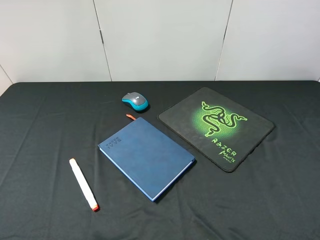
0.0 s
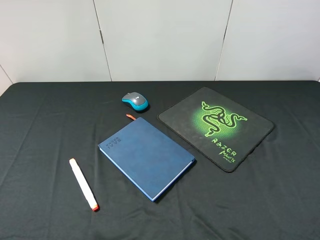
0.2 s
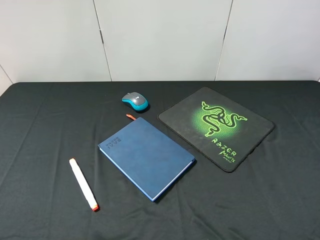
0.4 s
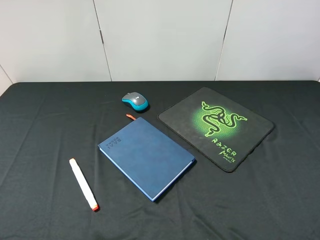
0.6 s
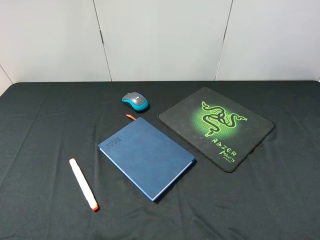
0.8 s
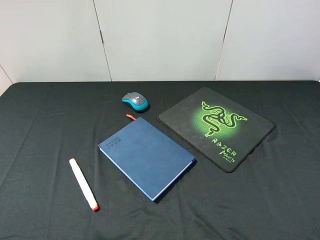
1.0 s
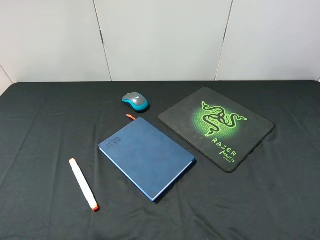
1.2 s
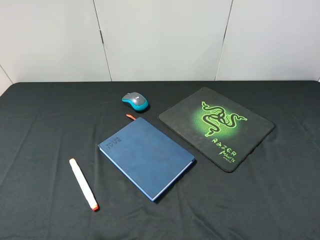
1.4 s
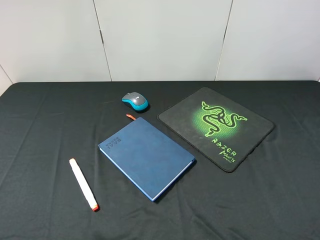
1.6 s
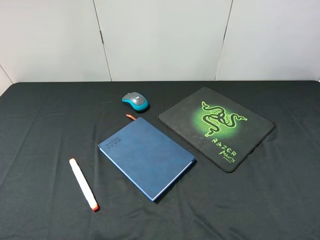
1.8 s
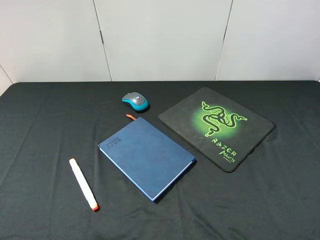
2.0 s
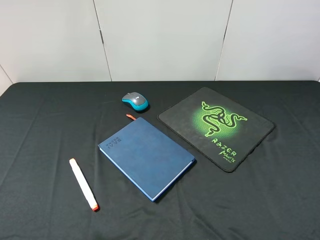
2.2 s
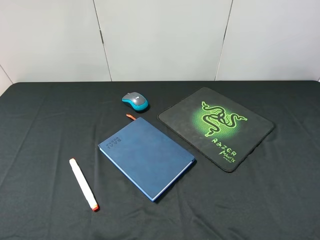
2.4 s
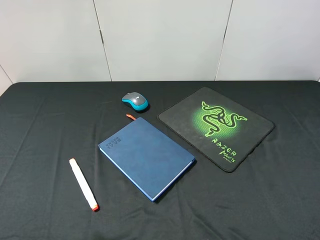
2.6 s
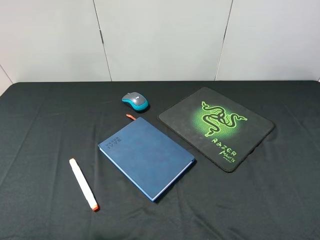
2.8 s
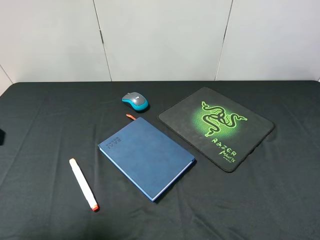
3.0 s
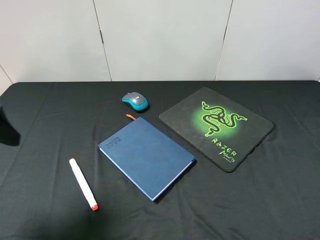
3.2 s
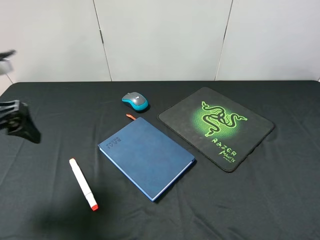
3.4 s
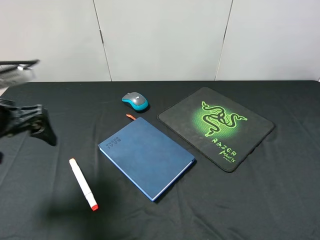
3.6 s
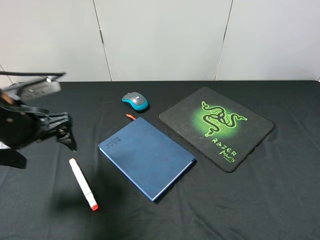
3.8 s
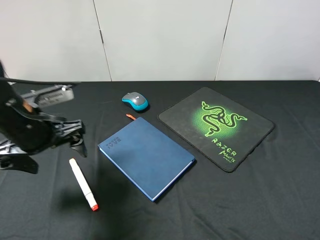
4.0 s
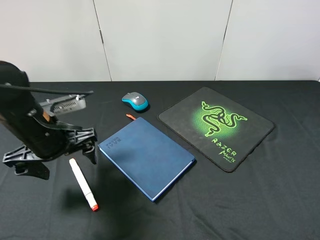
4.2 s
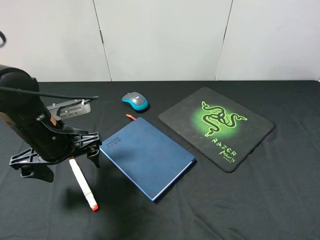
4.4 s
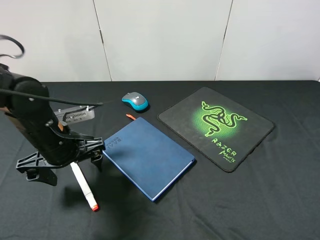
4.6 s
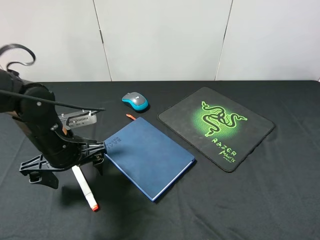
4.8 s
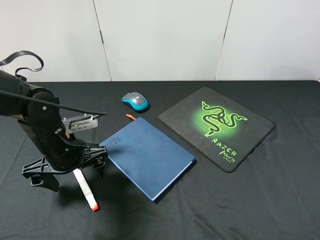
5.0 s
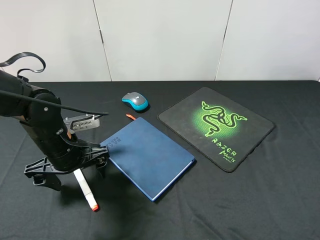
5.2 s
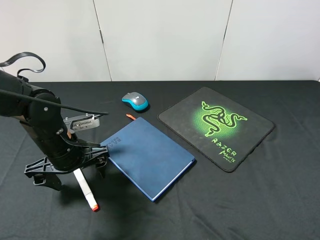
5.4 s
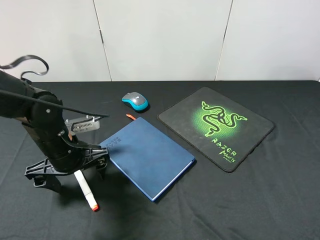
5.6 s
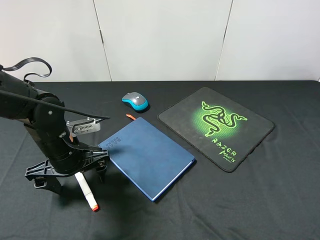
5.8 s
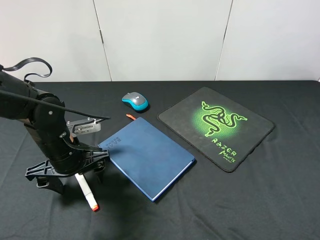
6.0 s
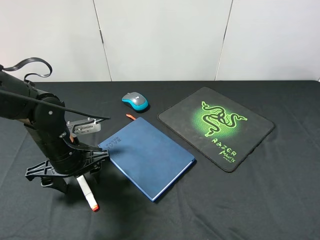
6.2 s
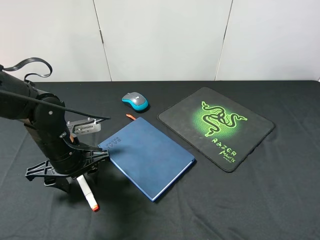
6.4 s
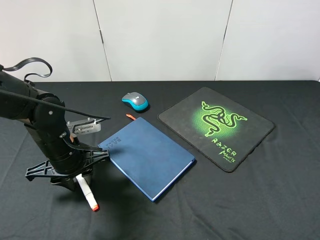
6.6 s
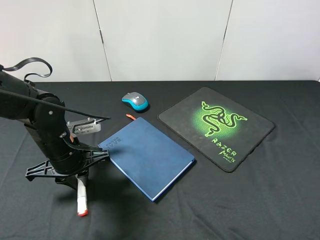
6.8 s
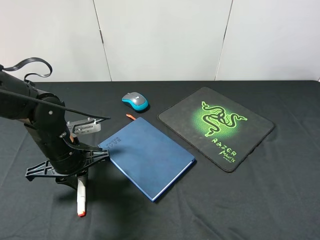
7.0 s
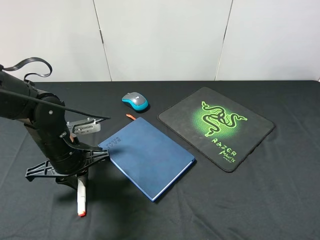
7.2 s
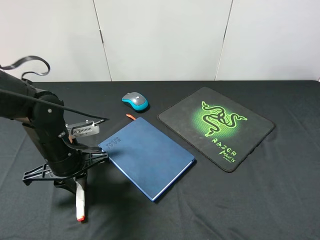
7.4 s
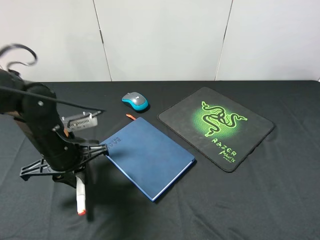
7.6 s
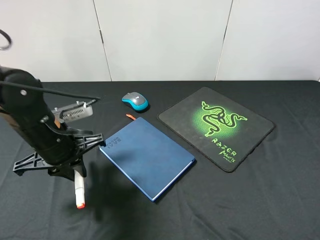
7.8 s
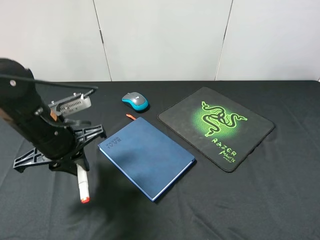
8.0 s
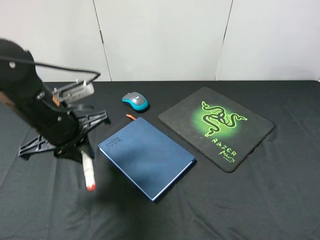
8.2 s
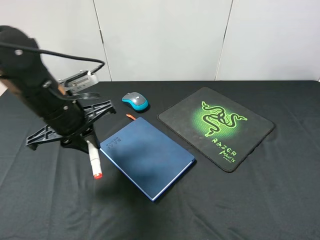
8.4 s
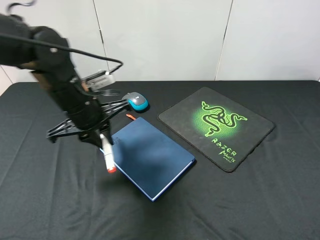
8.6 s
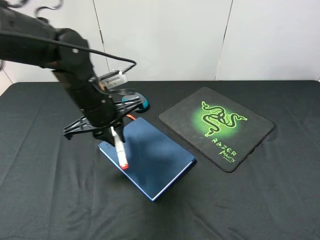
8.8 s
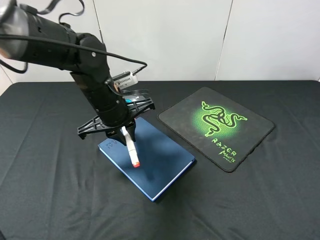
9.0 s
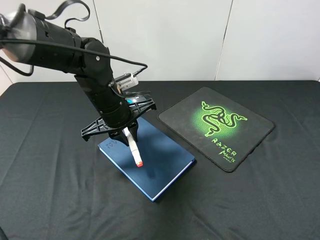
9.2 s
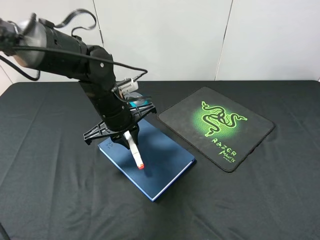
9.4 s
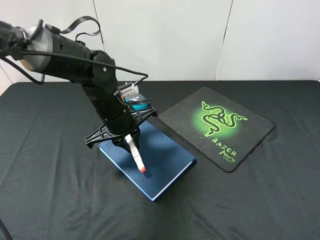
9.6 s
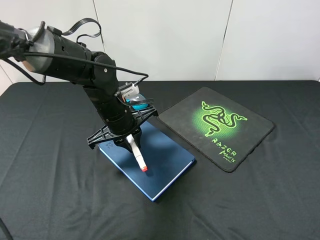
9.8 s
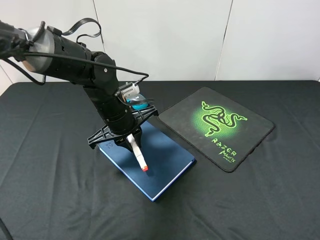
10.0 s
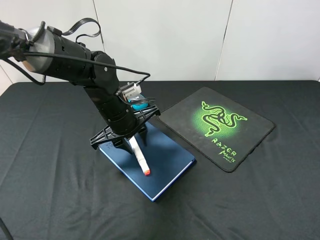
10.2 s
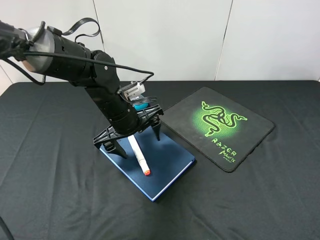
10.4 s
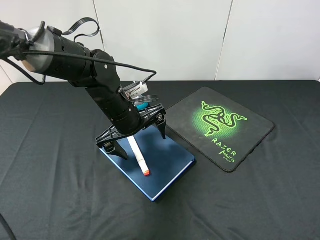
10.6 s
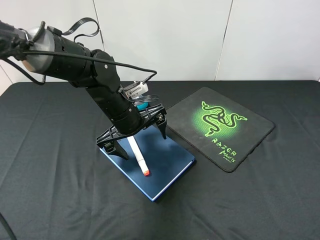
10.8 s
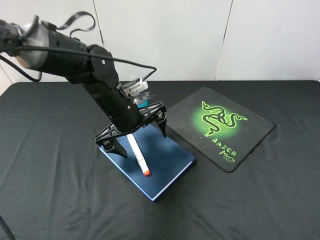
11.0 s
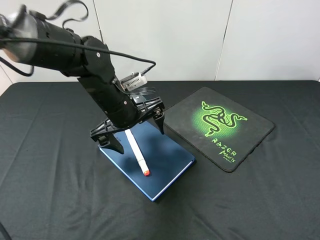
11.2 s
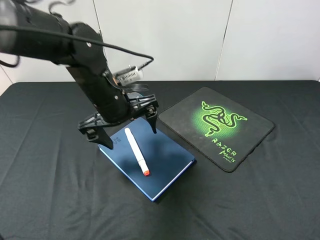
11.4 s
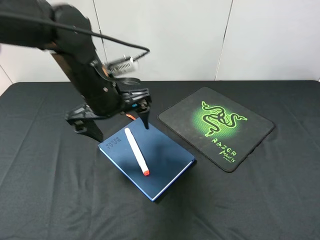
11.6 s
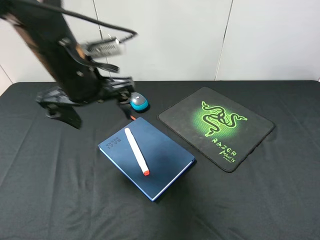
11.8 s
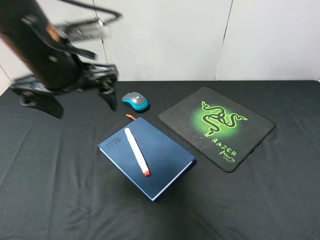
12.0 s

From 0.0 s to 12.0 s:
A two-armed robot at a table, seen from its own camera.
Step, from 0.0 s to 8.2 s: Pick up the marker pen with left gripper.
Step, from 8.4 s to 11.0 s: Place the marker pen on the notebook with left gripper.
From 0.0 s to 1.6 s: Both grippers stay put.
From 1.6 s to 3.0 s: The left gripper shifts approximately 15 cm forward.
From 3.0 s to 4.4 s: The left gripper is displaced downward, to the right and forward by about 20 cm.
From 4.4 s to 6.0 s: There are only small adjustments of the grippers.
From 6.0 s to 7.6 s: The left gripper closes up.
From 7.6 s to 9.0 s: The left gripper goes about 10 cm to the right and forward.
From 9.0 s to 10.4 s: The left gripper opens up.
From 10.4 s to 12.0 s: The left gripper moves upward and to the left, some 20 cm.

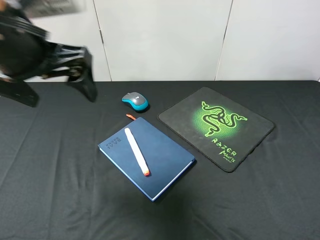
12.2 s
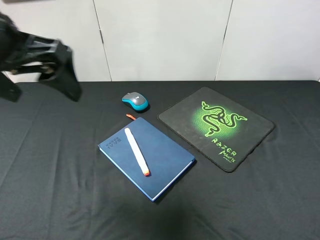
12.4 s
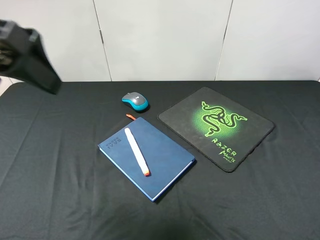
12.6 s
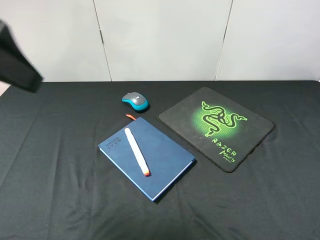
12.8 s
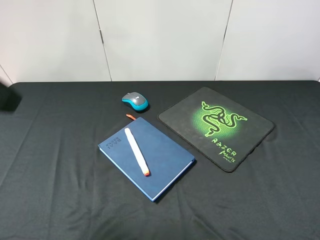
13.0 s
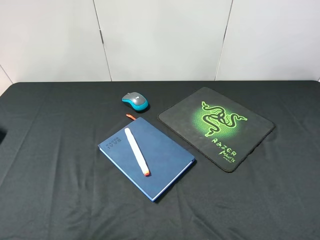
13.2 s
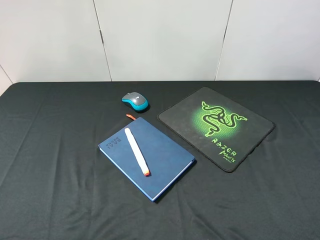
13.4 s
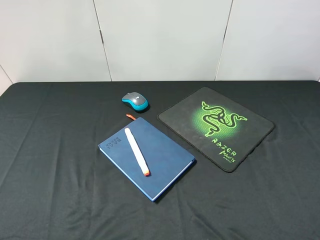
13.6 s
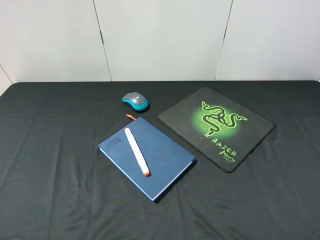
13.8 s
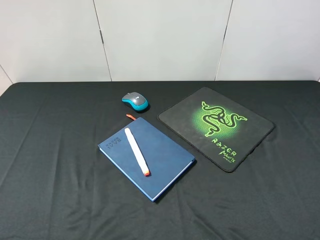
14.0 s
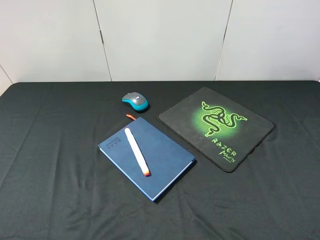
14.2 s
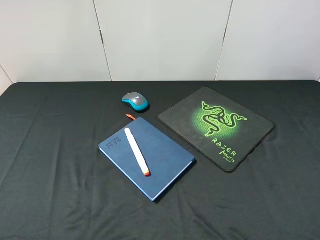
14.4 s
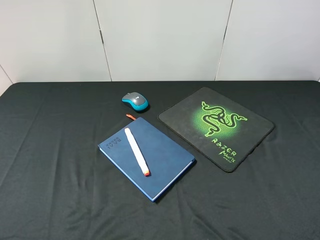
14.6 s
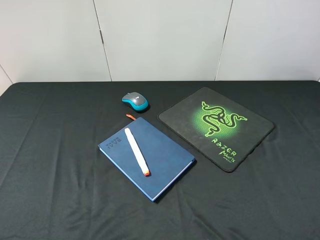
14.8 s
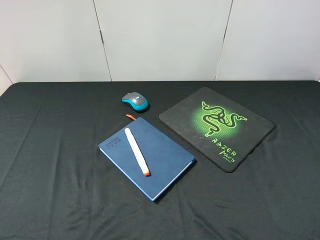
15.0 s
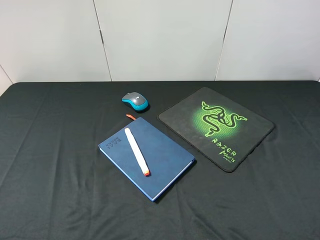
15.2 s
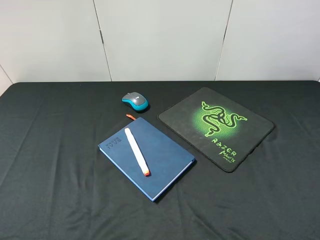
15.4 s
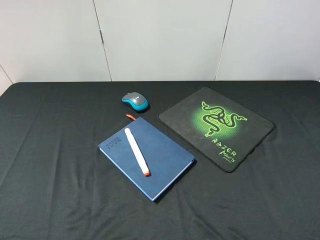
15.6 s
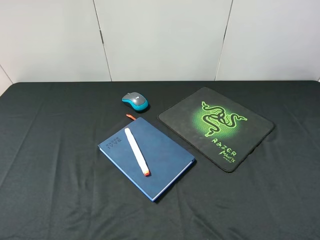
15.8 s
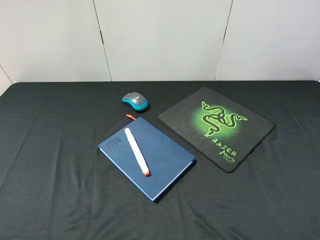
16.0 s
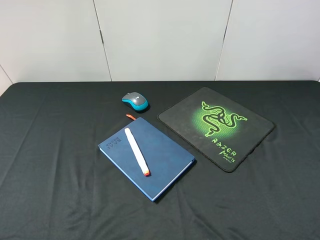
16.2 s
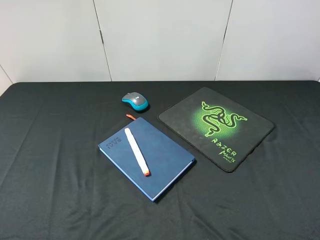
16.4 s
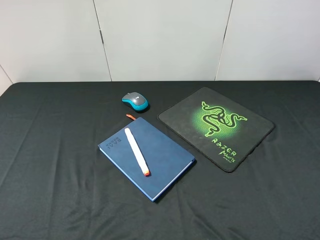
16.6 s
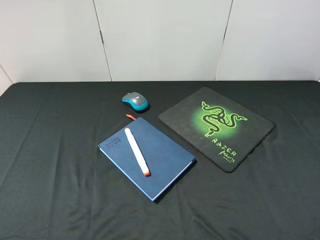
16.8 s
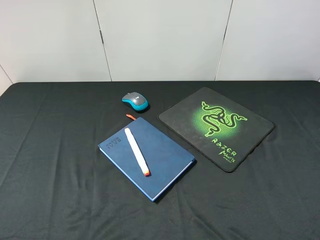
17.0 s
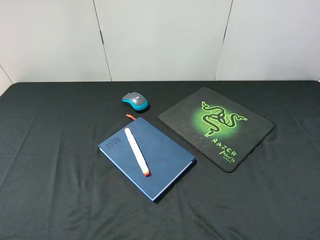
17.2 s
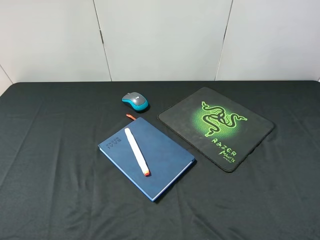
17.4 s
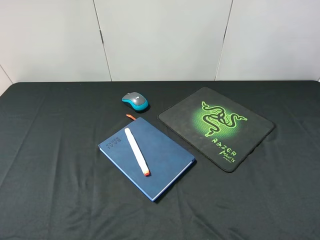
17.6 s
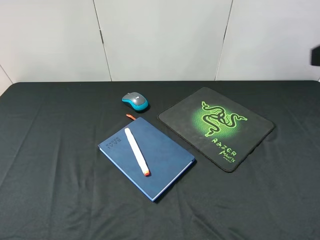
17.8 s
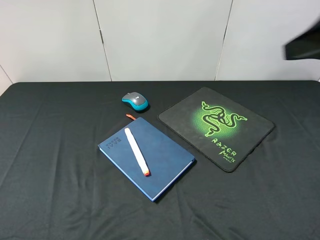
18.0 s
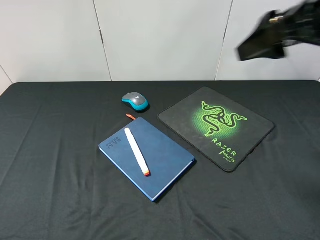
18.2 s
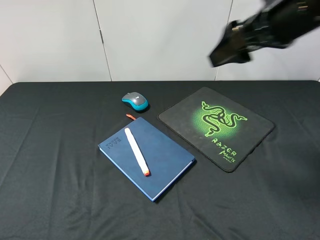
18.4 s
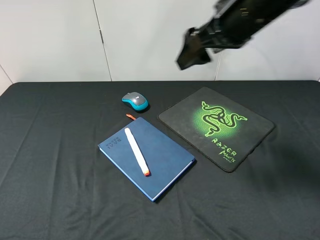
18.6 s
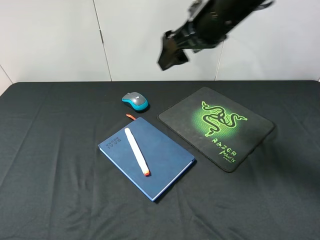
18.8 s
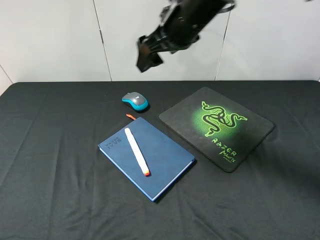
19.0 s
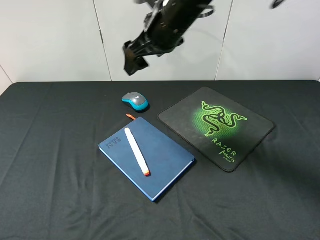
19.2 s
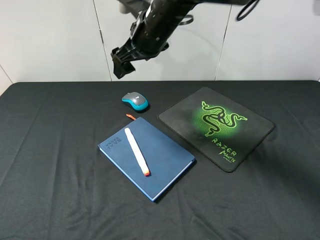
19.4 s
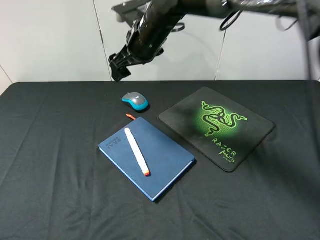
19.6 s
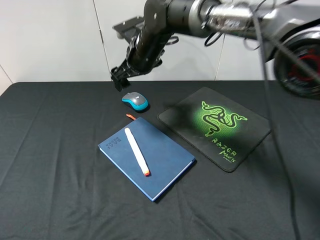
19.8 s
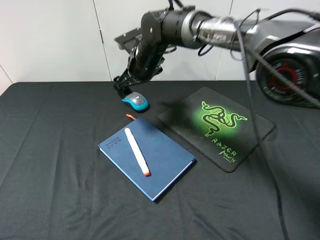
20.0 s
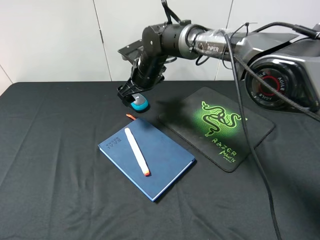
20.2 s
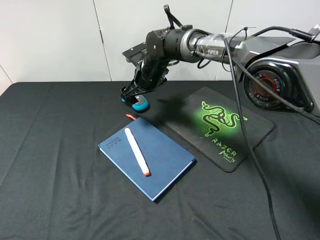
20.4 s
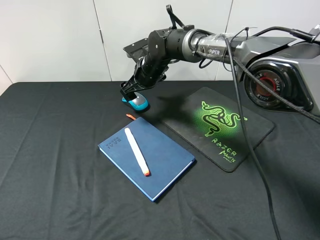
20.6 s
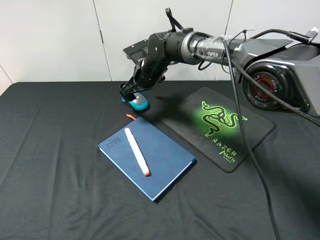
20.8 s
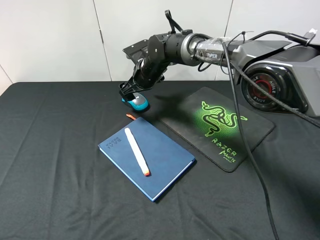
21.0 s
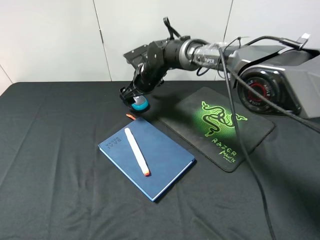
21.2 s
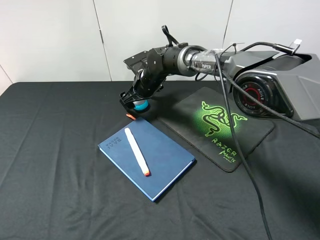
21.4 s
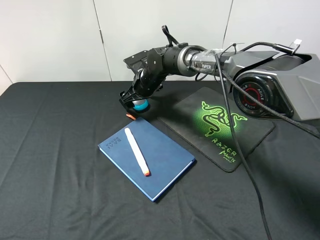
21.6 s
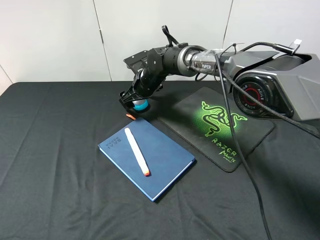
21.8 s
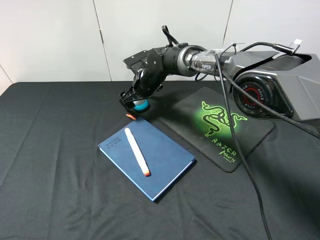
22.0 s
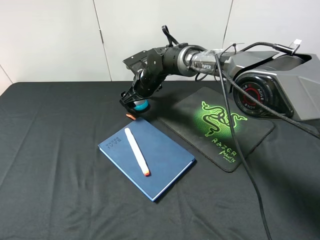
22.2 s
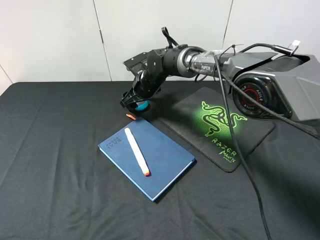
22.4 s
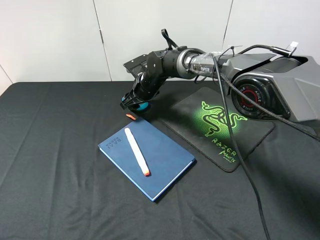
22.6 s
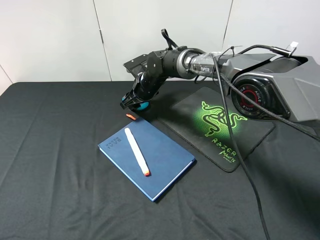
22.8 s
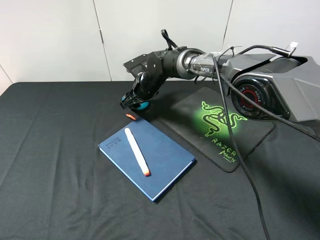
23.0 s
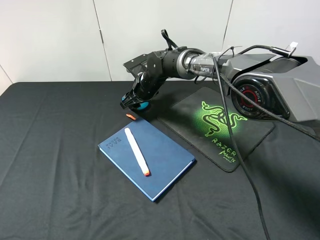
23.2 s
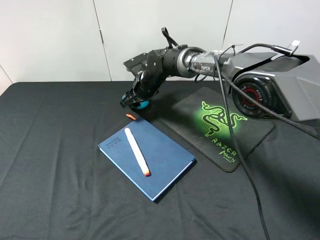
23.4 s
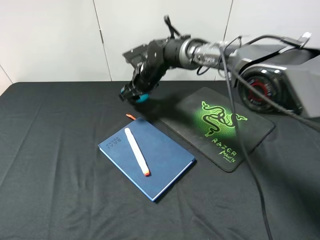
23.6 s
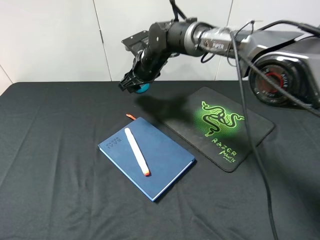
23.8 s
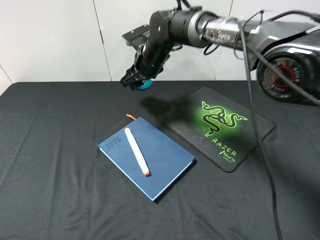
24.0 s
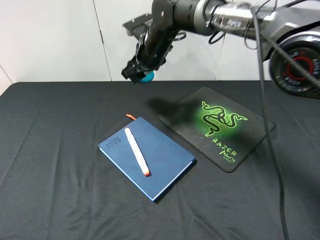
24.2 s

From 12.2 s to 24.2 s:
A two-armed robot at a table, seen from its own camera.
Step, from 12.2 s to 24.0 s: Pick up the mouse with right gripper.
From 12.2 s to 13.8 s: The left gripper travels backward and to the left by about 20 cm.
From 15.2 s to 16.6 s: Both grippers stay put.
From 16.6 s to 18.2 s: The right gripper travels forward and to the left by some 25 cm.
From 18.2 s to 19.8 s: The right gripper travels to the left, forward and downward by some 35 cm.
From 19.8 s to 21.2 s: The right gripper shifts some 10 cm downward.
From 21.2 s to 22.6 s: The right gripper closes.
From 22.6 s to 24.2 s: The right gripper is displaced upward by some 10 cm.
